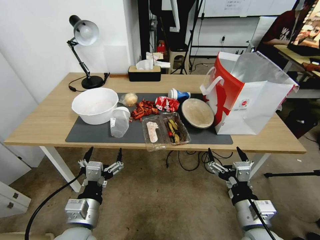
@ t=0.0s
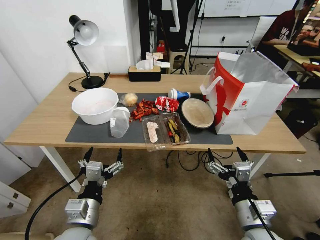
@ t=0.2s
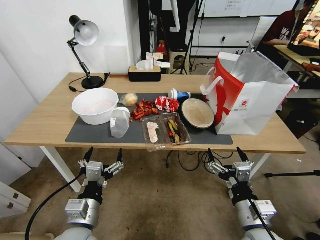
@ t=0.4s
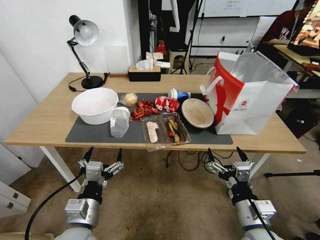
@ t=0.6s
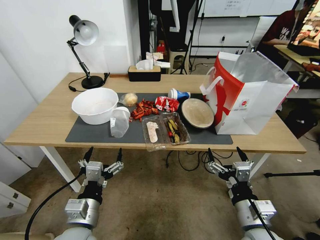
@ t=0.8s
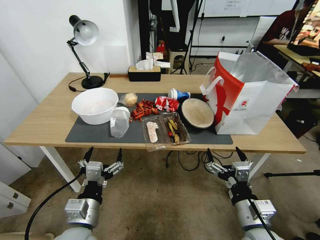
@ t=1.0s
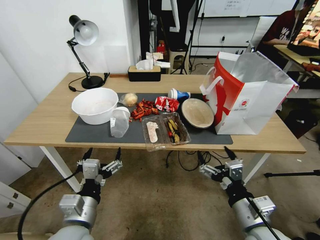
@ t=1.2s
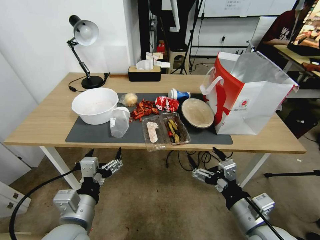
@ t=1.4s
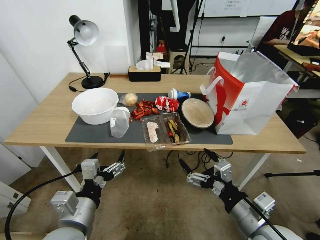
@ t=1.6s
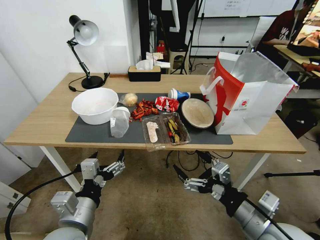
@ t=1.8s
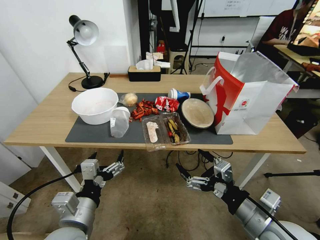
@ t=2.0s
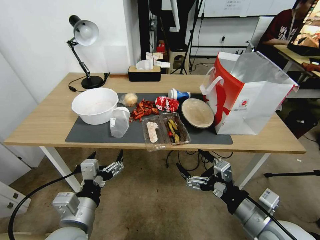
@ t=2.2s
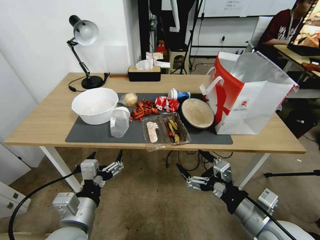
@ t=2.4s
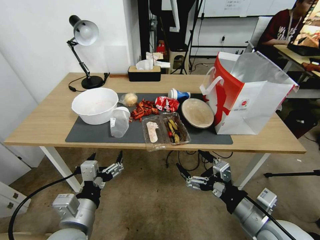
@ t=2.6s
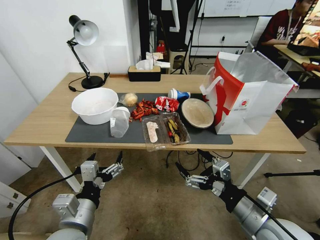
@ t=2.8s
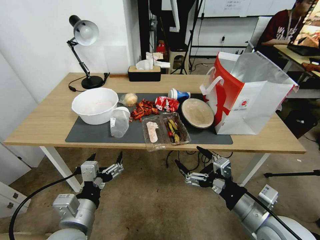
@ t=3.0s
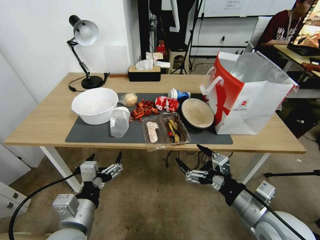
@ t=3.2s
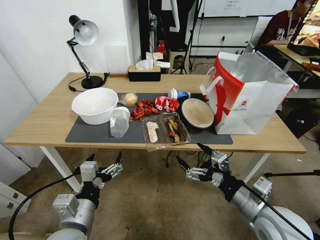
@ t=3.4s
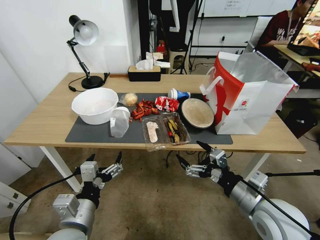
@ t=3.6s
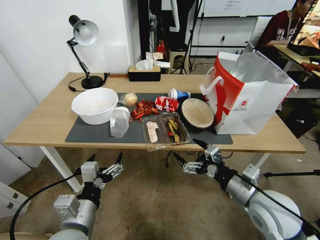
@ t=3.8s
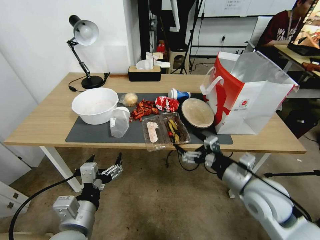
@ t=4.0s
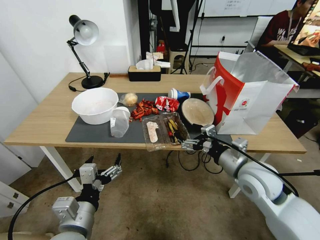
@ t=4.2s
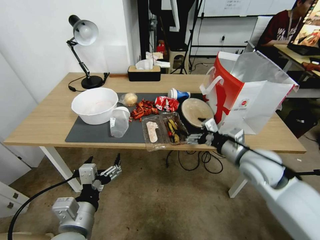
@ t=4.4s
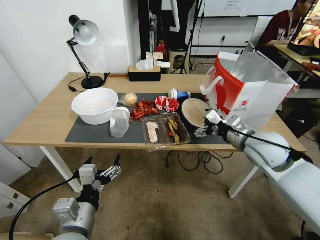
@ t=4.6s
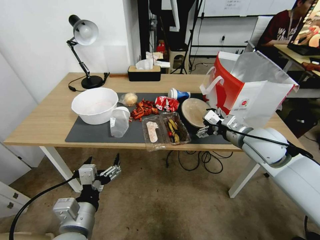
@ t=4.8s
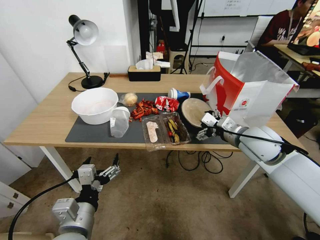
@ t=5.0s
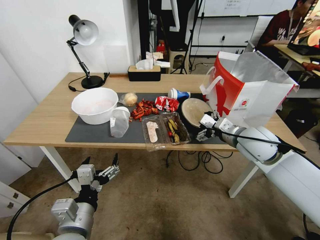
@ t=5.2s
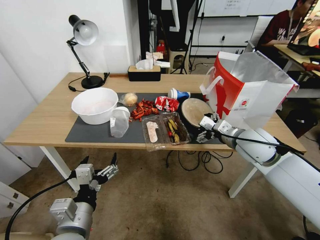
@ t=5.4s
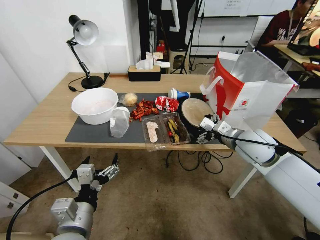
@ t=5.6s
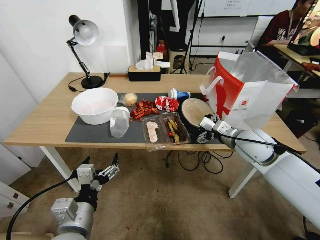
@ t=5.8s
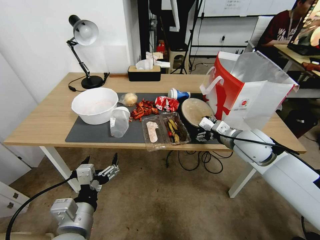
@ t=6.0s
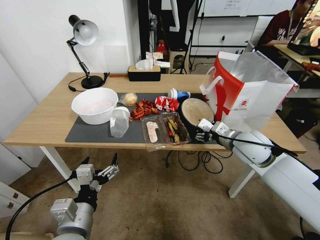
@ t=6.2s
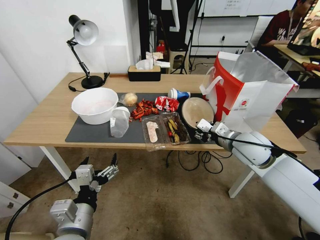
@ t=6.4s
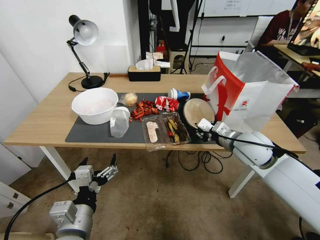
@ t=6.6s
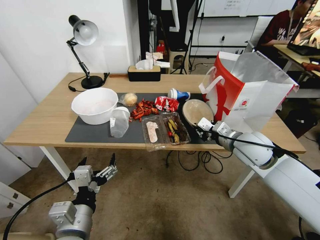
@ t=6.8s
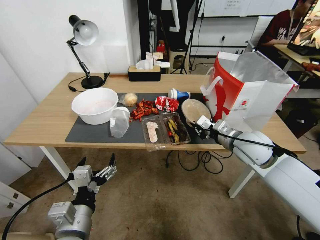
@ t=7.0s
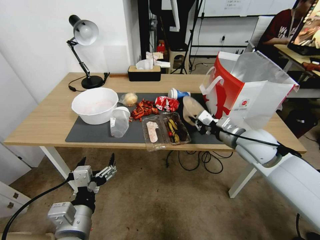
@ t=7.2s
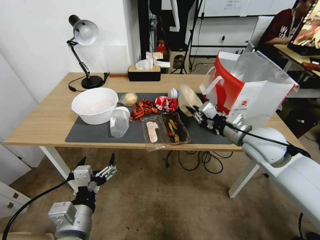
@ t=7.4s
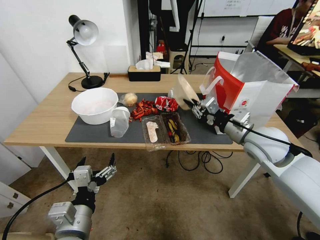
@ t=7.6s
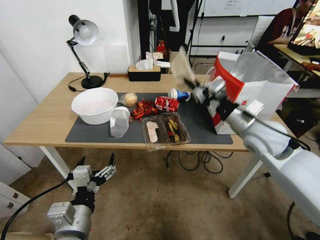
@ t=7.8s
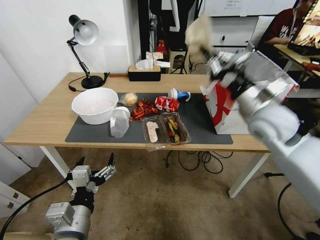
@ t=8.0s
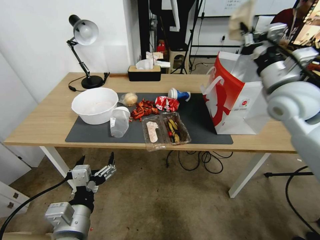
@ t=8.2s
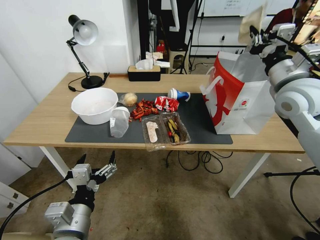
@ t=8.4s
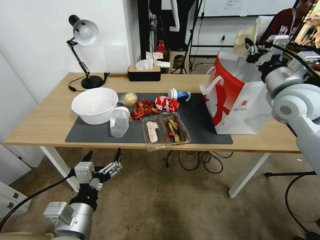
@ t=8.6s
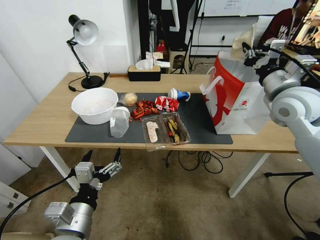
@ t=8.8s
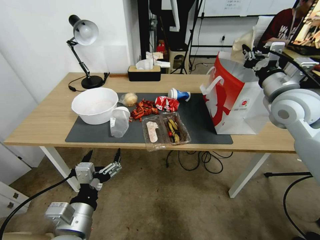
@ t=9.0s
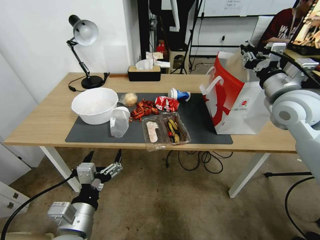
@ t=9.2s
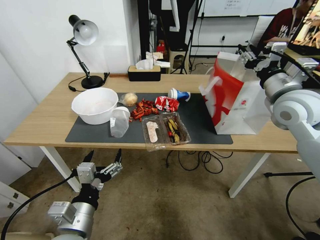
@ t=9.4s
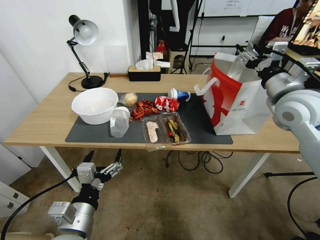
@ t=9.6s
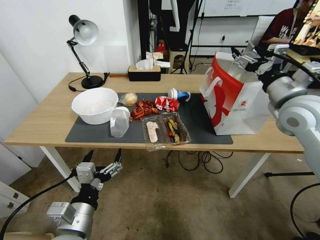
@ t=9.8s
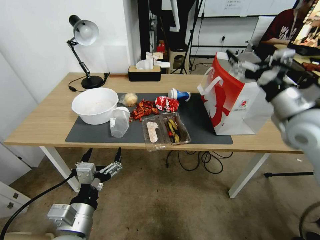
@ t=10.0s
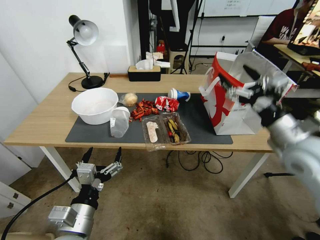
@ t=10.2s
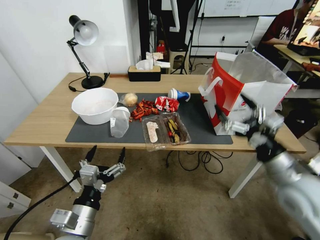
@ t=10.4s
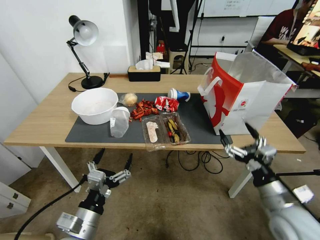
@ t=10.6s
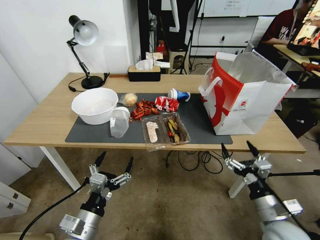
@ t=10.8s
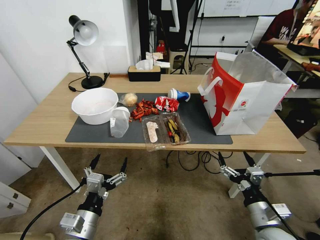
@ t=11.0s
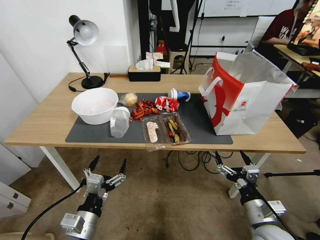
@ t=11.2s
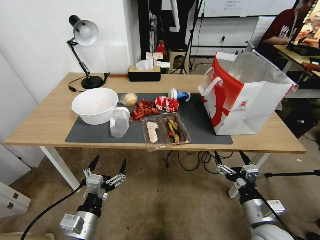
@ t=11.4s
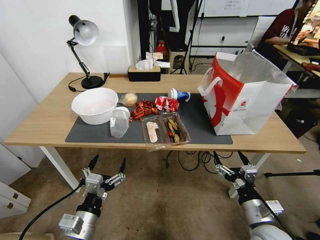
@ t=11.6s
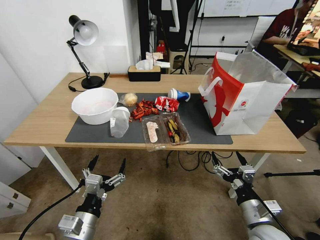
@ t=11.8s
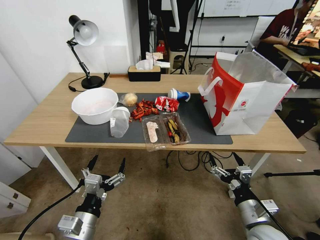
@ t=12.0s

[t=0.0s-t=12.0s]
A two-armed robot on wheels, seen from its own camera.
t=1.6s to t=3.0s: The grippers move only a little.
t=3.0s to t=4.4s: The right gripper shifts about 15 cm forward.
t=4.4s to t=6.0s: The right gripper goes about 5 cm forward.
t=6.0s to t=7.6s: The right gripper closes its fingers.
t=7.6s to t=9.0s: The right gripper travels upward and to the right by approximately 10 cm.
t=9.0s to t=10.4s: The right gripper moves backward and downward, roughly 20 cm, and opens up.
t=10.4s to t=12.0s: The right gripper is displaced downward and backward by approximately 15 cm.

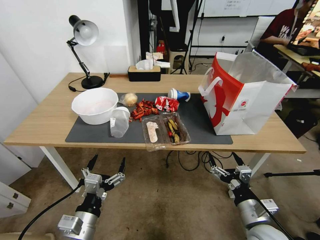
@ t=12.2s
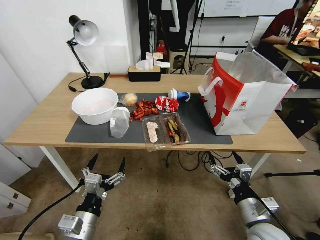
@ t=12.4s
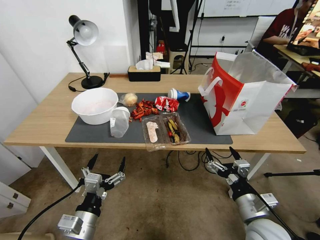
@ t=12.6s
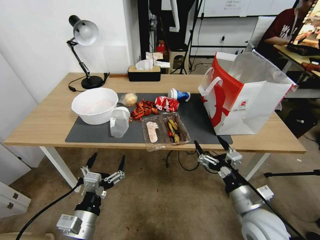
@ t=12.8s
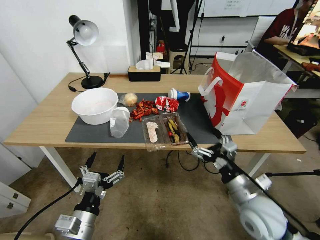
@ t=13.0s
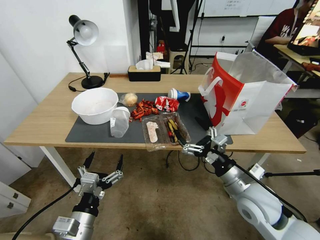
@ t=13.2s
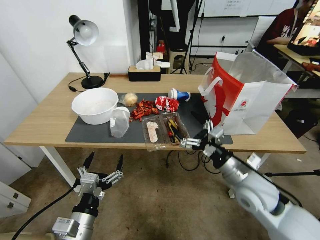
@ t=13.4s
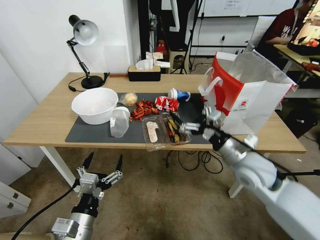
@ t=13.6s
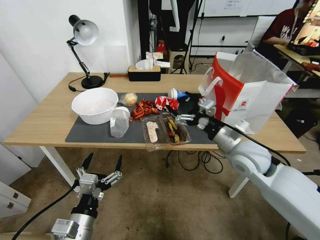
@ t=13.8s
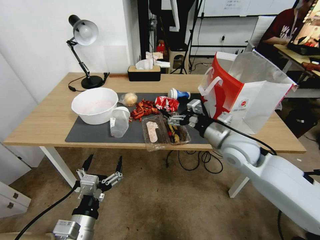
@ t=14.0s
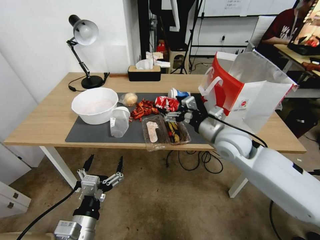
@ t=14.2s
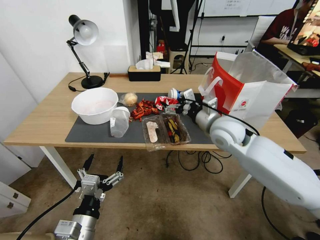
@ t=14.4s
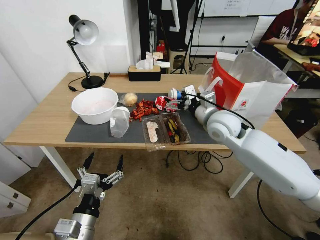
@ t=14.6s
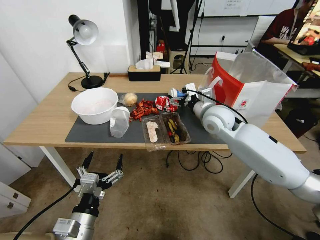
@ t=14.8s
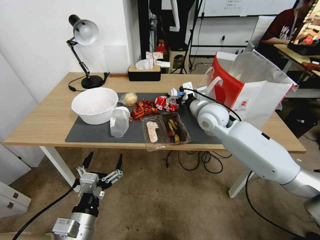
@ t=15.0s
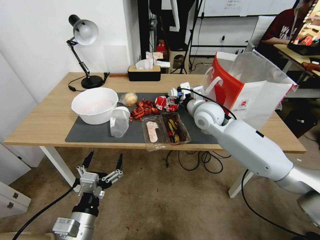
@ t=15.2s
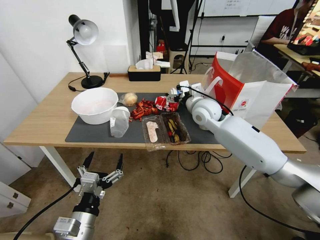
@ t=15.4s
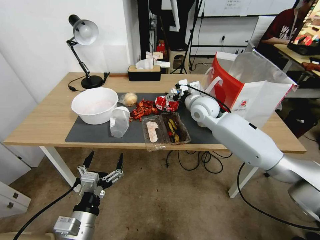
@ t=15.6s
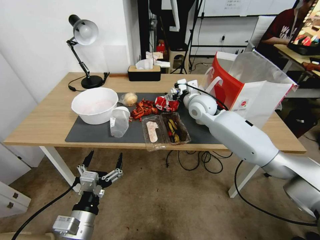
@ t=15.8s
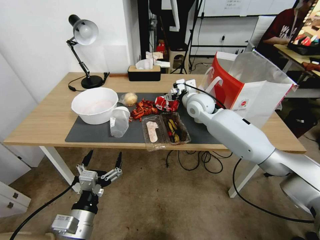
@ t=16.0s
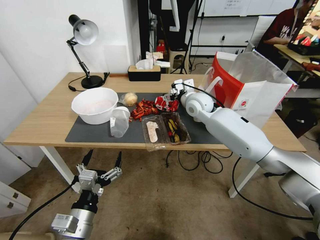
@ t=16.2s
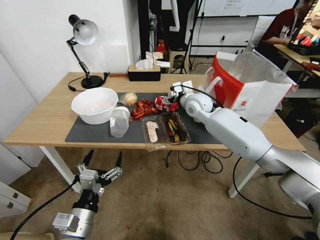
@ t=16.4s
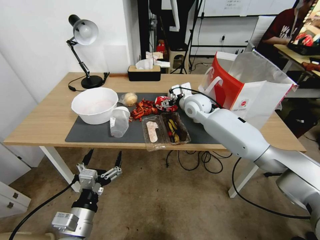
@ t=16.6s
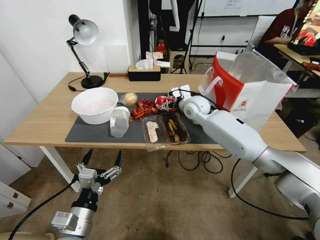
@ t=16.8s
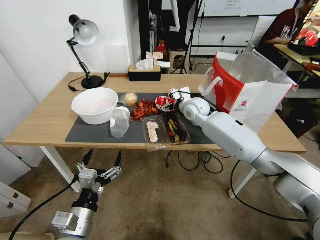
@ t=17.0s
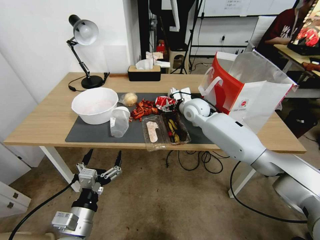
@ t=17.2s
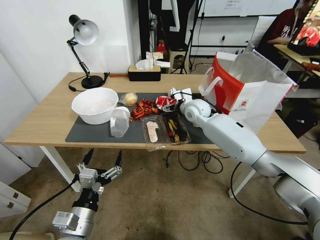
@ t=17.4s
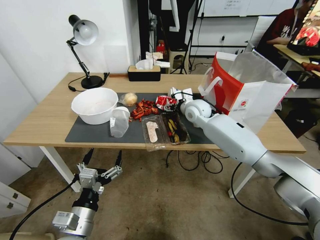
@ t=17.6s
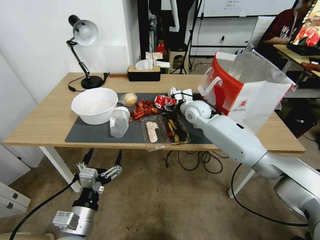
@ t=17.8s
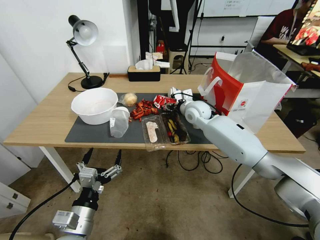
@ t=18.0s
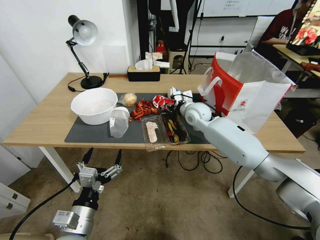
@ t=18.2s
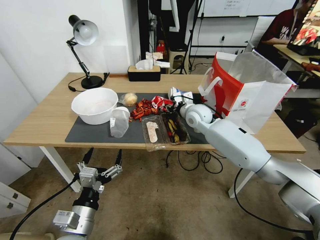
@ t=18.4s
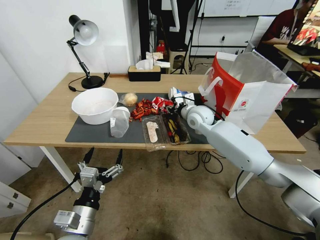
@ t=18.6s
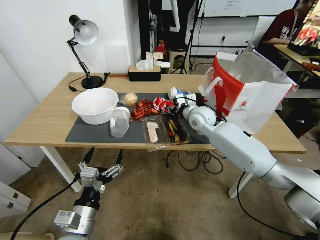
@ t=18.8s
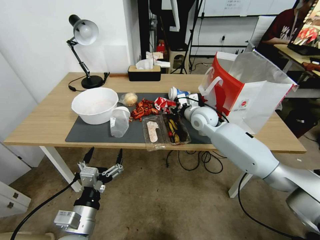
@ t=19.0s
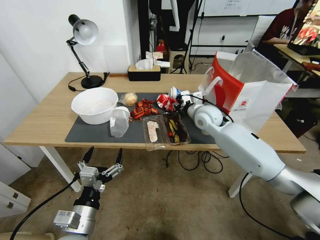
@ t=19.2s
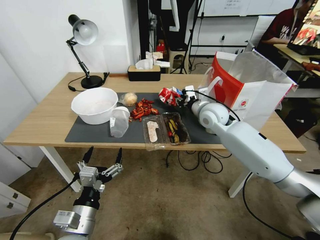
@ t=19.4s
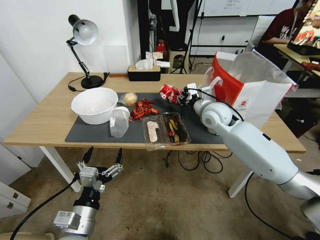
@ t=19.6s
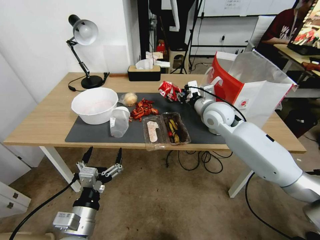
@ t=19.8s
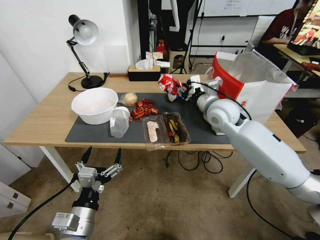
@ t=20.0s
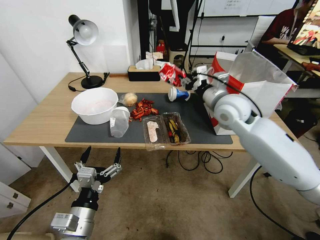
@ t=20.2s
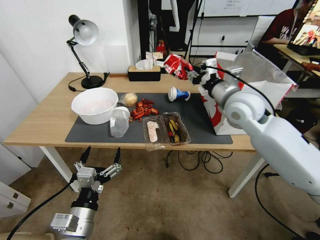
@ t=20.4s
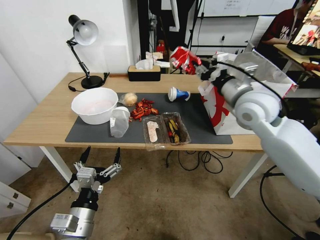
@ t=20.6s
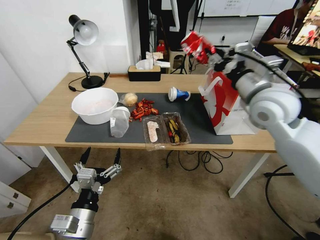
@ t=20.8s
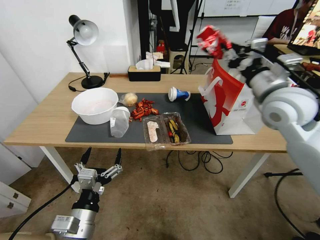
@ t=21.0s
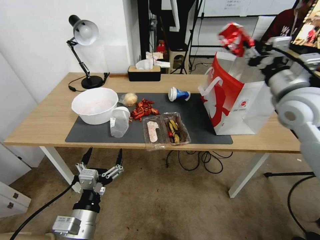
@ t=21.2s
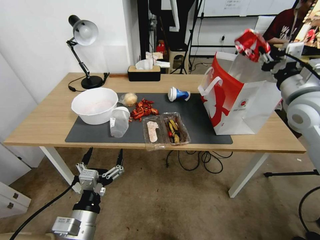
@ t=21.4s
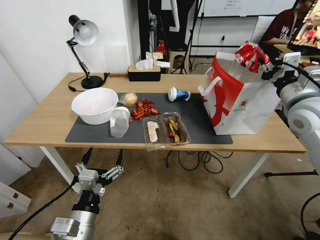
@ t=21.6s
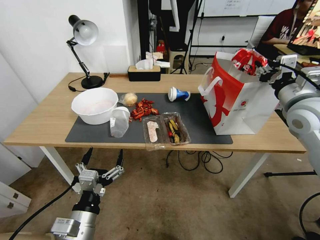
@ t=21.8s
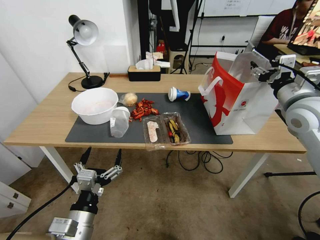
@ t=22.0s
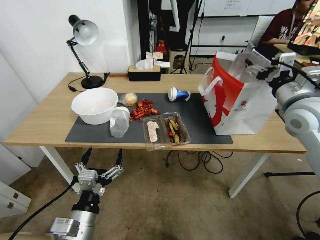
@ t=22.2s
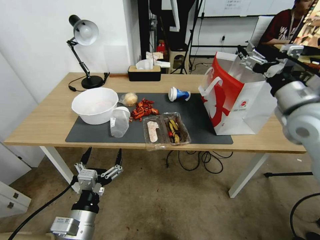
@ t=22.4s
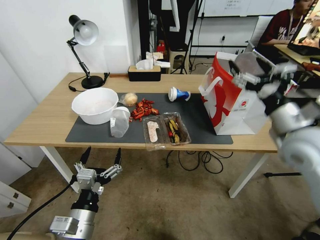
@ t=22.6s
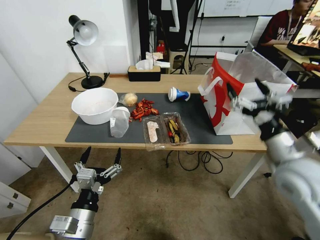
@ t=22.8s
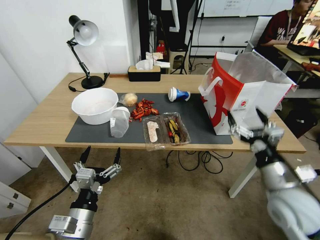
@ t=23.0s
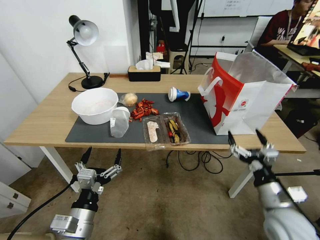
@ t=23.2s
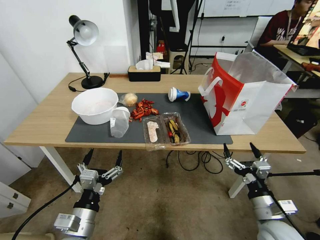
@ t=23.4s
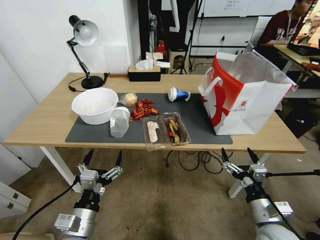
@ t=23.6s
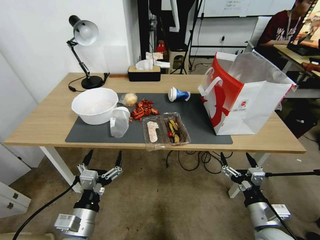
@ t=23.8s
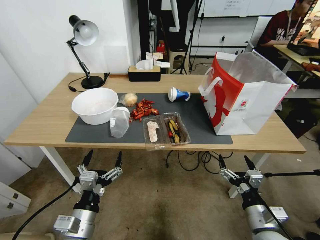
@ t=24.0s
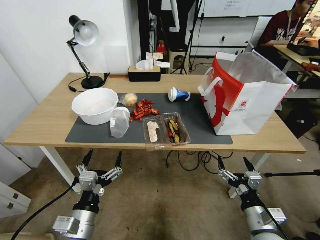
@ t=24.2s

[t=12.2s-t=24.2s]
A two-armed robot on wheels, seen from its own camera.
t=12.2s to t=13.8s: The right gripper moves forward and upward, about 25 cm.
t=13.8s to t=15.2s: The right gripper shifts roughly 15 cm forward and to the left.
t=15.2s to t=16.6s: The right gripper is displaced forward by about 5 cm.
t=16.6s to t=18.2s: The right gripper closes.
t=18.2s to t=19.8s: The right gripper heads backward and upward, covering roughly 5 cm.
t=19.8s to t=21.2s: The right gripper heads to the right, upward and backward, covering approximately 20 cm.
t=21.2s to t=22.6s: The right gripper goes roughly 5 cm backward, and opens.
t=22.6s to t=24.2s: The right gripper moves downward and backward, about 30 cm.
